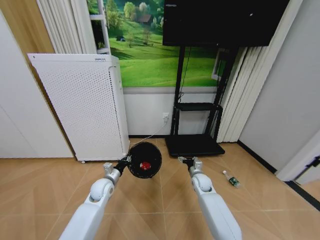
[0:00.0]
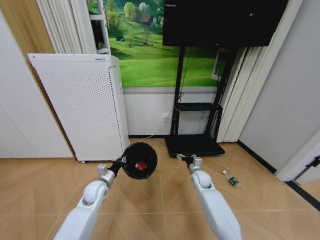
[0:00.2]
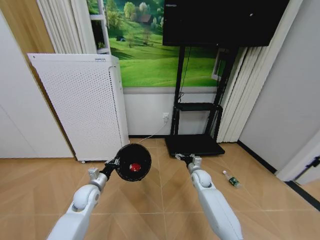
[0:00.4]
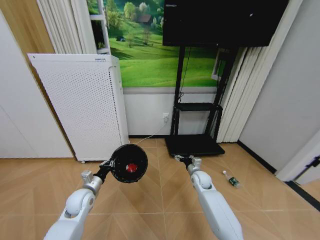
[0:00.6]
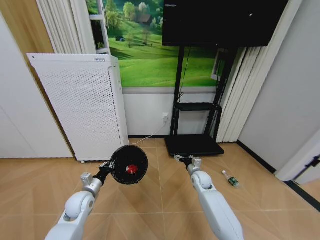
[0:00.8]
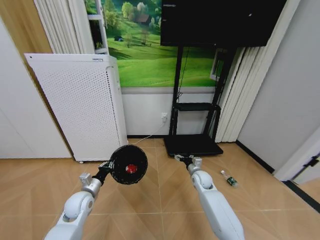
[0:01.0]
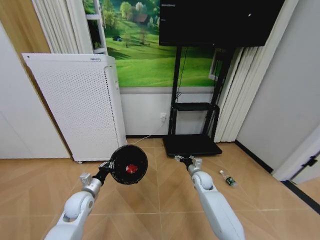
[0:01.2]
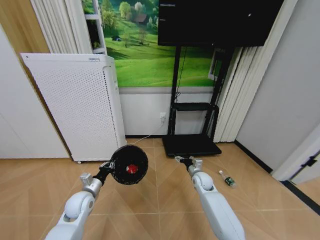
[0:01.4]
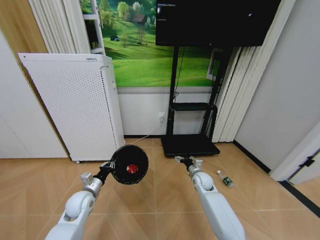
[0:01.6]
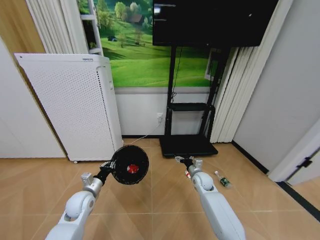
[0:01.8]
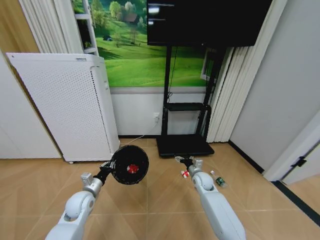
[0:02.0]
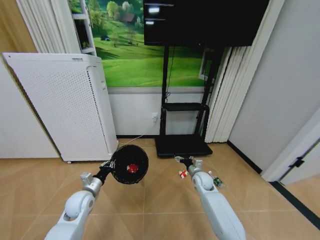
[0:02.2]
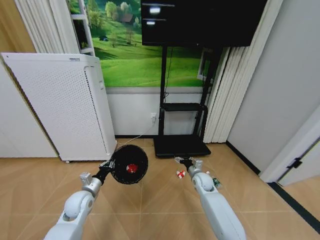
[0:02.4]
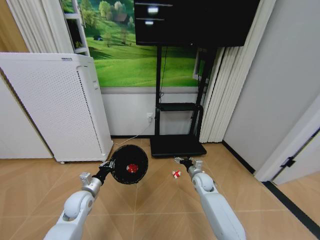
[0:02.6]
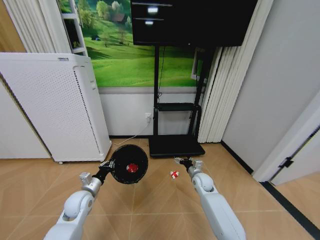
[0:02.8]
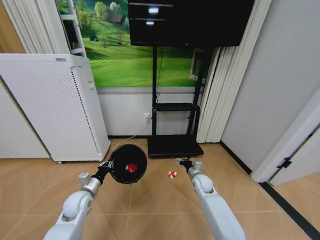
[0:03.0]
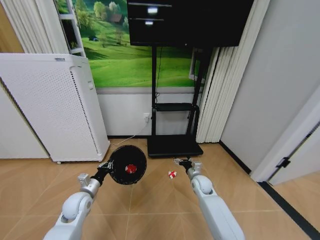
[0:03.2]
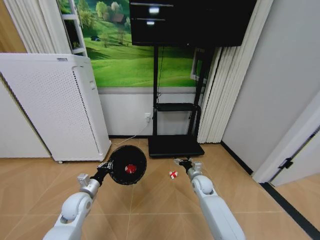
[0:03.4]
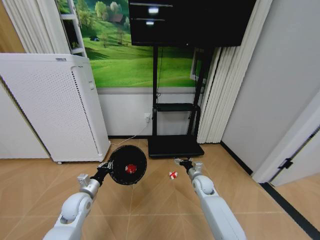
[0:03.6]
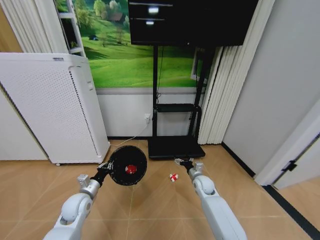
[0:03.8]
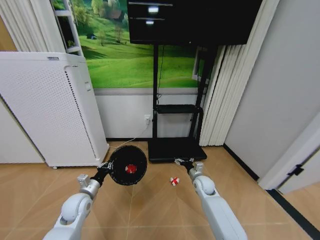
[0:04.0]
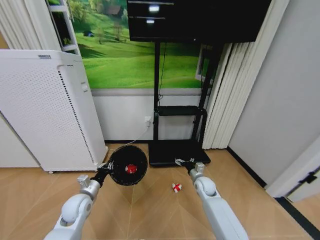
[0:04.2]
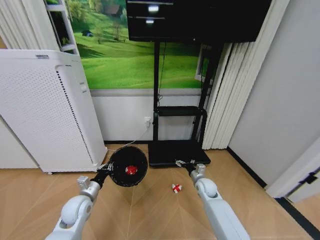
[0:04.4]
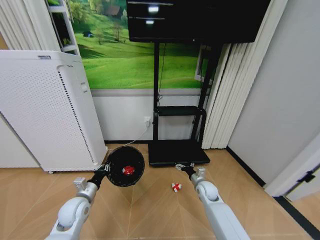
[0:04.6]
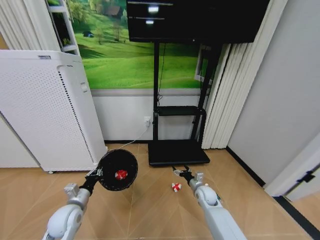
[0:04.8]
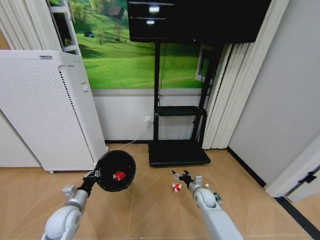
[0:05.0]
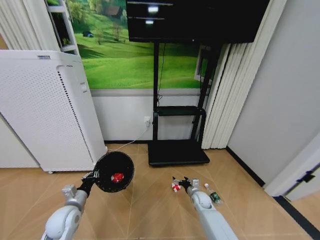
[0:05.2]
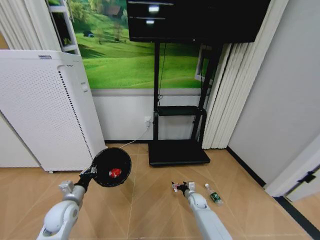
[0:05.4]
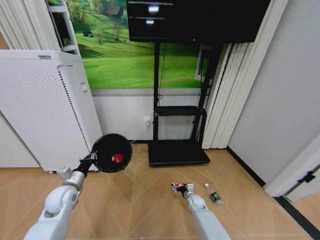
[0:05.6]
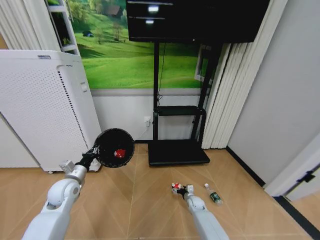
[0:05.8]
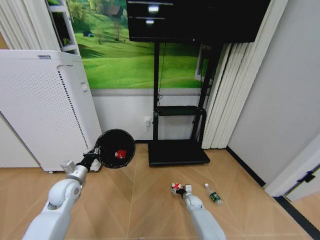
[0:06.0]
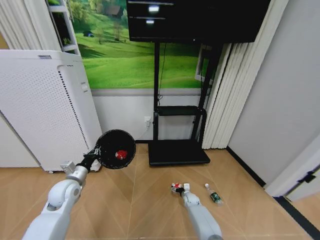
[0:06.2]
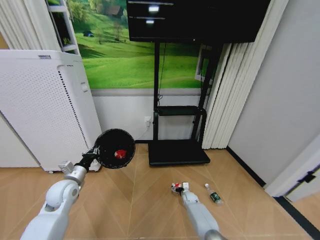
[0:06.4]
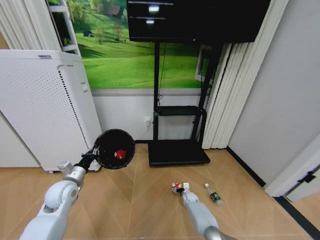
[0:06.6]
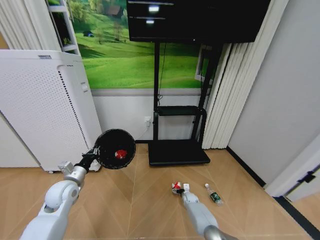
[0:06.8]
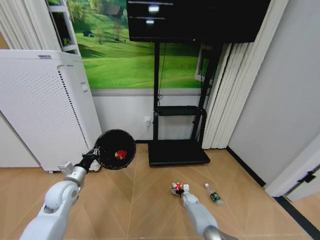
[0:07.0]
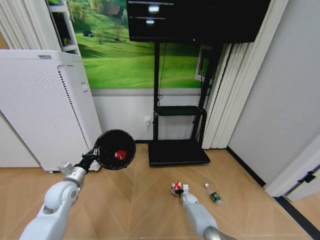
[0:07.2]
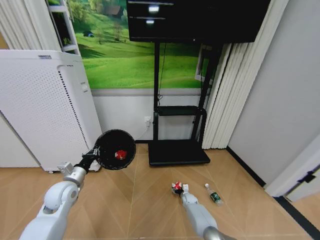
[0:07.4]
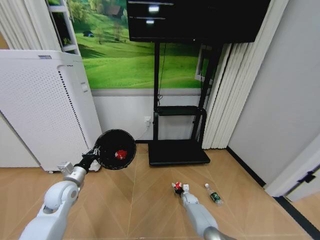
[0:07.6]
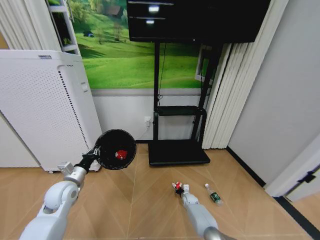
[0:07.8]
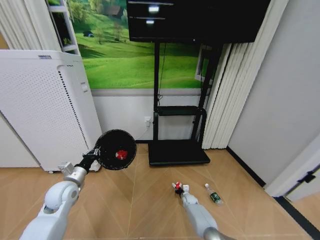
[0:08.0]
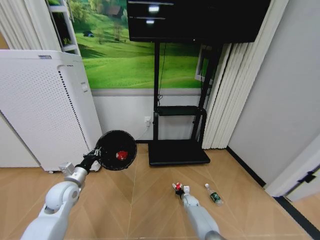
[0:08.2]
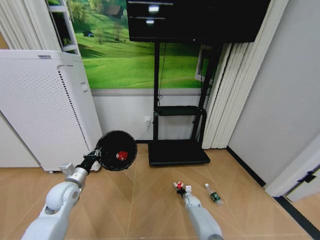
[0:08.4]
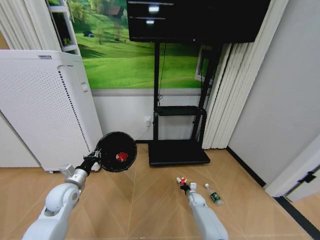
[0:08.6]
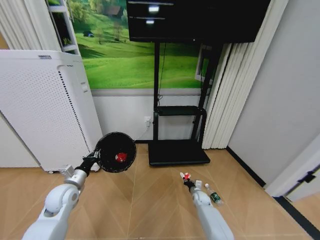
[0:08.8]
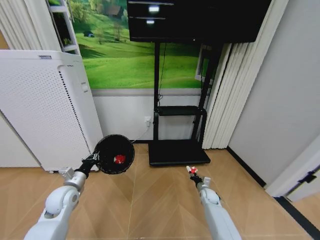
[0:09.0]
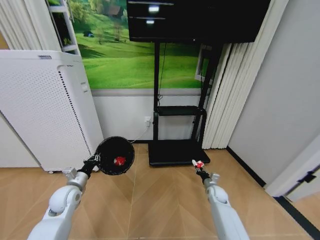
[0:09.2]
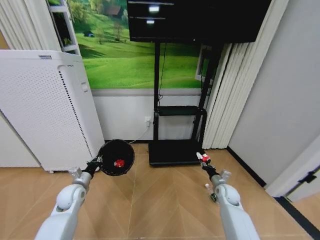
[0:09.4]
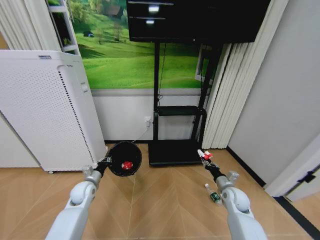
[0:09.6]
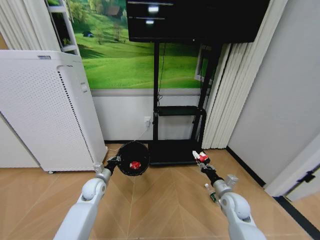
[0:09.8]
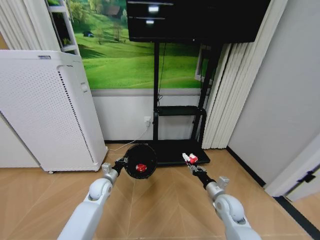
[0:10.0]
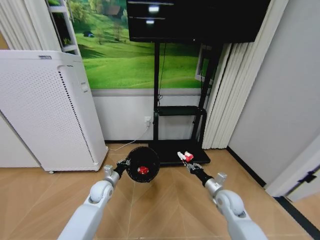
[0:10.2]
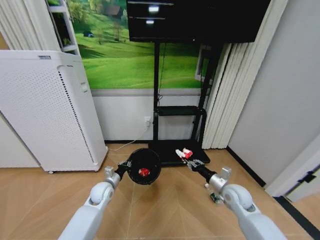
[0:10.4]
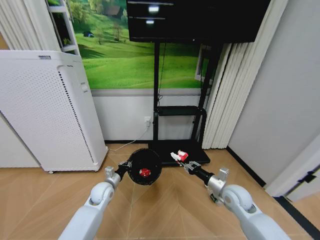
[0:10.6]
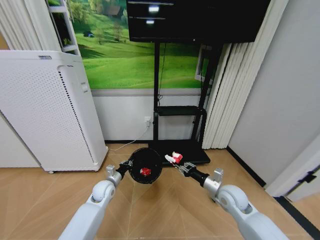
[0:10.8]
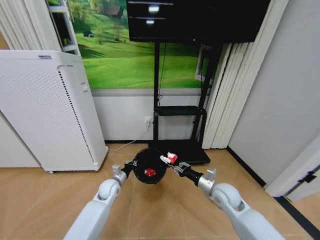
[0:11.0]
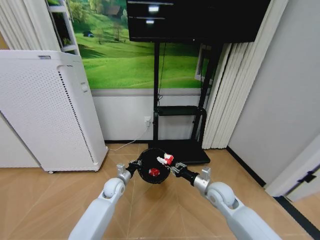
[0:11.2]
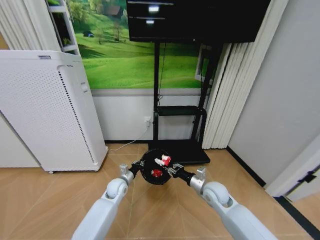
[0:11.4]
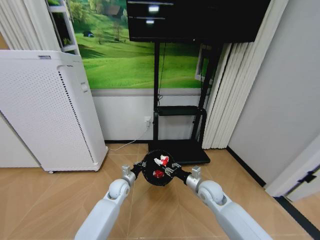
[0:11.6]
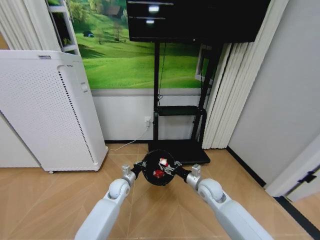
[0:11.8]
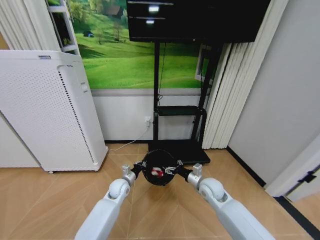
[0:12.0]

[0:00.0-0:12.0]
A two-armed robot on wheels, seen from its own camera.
Task of the whole recording: Pick up the trash bin and place the garbage on the floor into it.
0:00.0 to 0:01.6: The left gripper shifts some 10 cm to the left and backward.
0:04.4 to 0:06.0: The left gripper moves upward, some 5 cm, while the right gripper travels downward by approximately 20 cm.
0:06.0 to 0:07.6: The right gripper closes.
0:07.6 to 0:09.0: The right gripper moves upward and to the right, some 10 cm, and closes its fingers.
0:09.0 to 0:10.4: The right gripper travels upward and backward by approximately 20 cm, while the left gripper is displaced to the right, downward and forward by roughly 15 cm.
0:10.4 to 0:12.0: The right gripper shifts approximately 10 cm to the left, and opens up. Meanwhile the left gripper goes some 5 cm to the right.

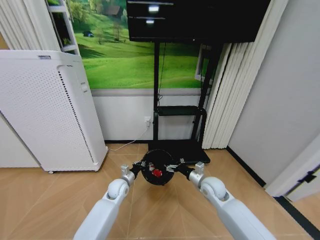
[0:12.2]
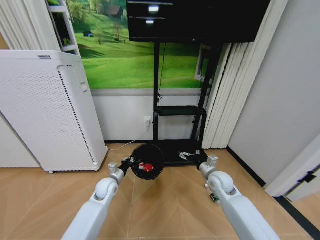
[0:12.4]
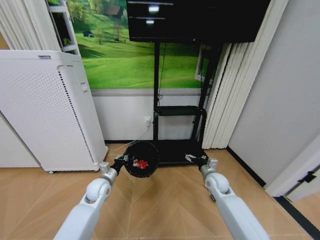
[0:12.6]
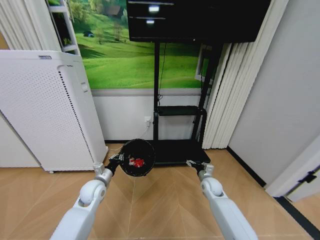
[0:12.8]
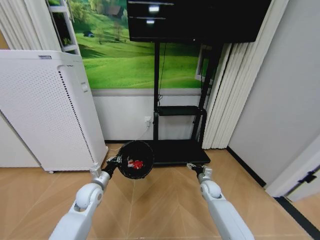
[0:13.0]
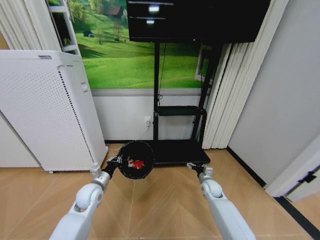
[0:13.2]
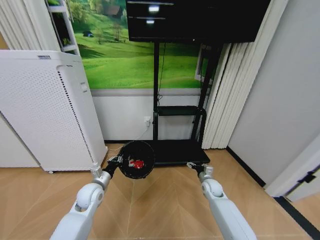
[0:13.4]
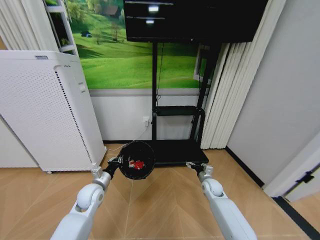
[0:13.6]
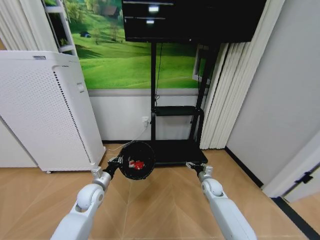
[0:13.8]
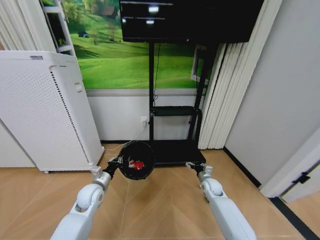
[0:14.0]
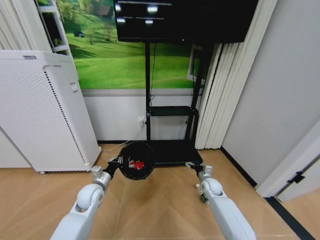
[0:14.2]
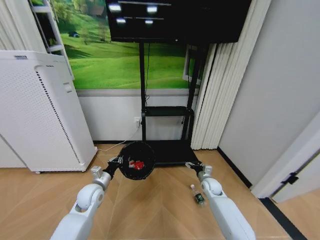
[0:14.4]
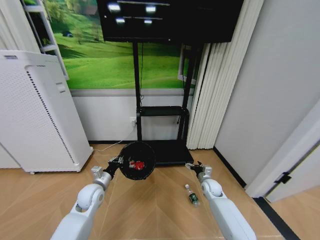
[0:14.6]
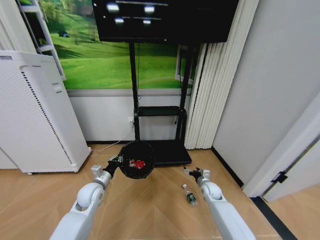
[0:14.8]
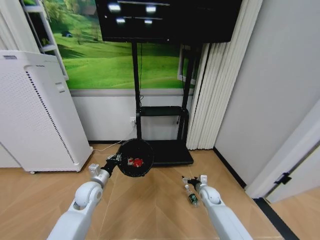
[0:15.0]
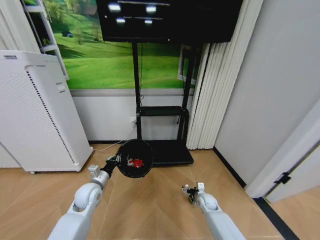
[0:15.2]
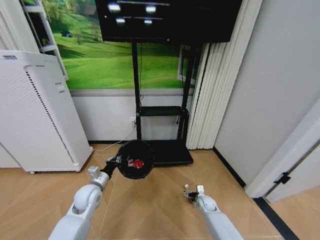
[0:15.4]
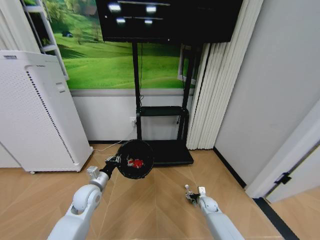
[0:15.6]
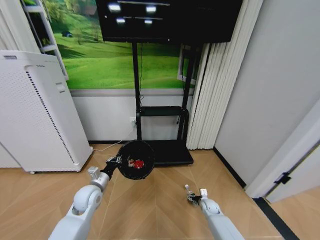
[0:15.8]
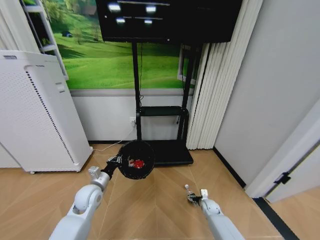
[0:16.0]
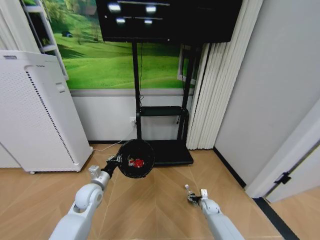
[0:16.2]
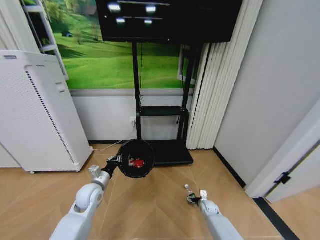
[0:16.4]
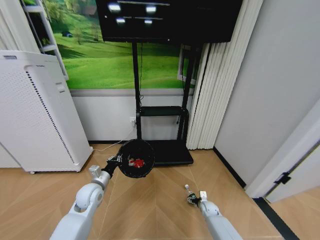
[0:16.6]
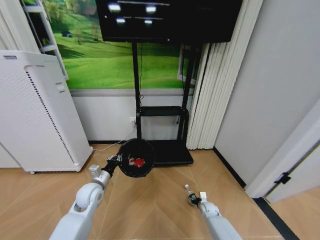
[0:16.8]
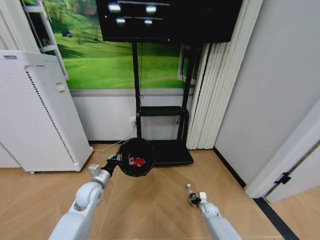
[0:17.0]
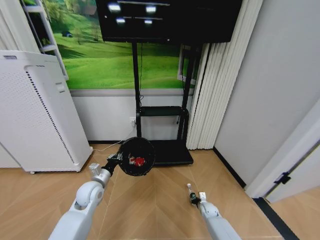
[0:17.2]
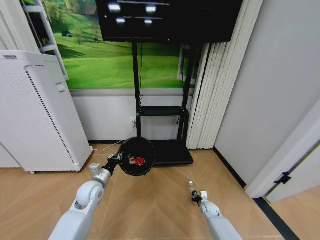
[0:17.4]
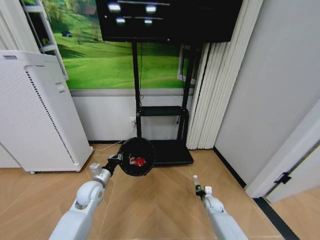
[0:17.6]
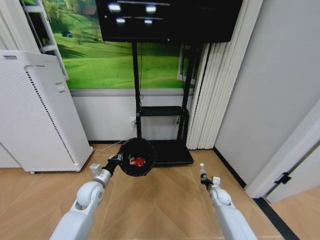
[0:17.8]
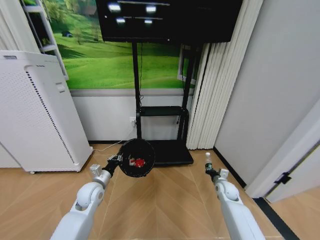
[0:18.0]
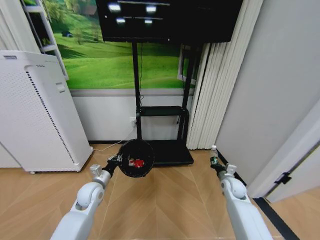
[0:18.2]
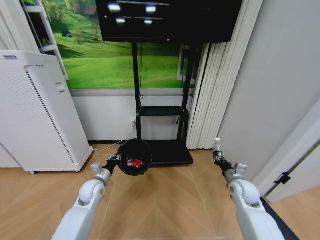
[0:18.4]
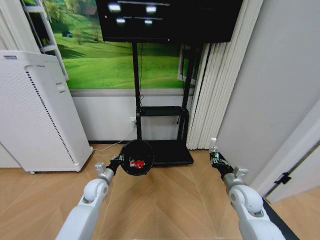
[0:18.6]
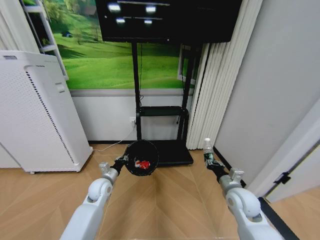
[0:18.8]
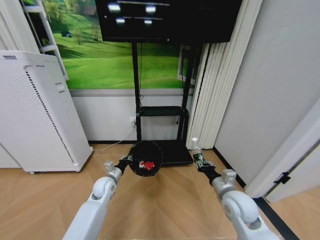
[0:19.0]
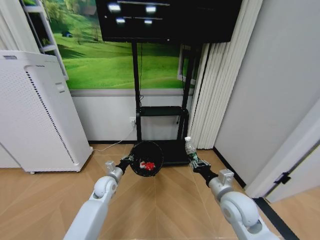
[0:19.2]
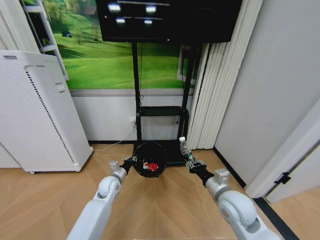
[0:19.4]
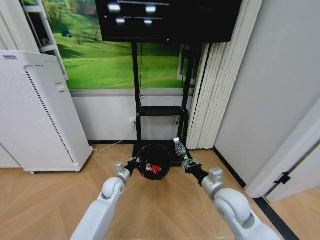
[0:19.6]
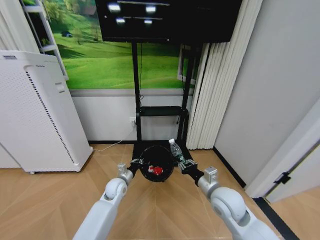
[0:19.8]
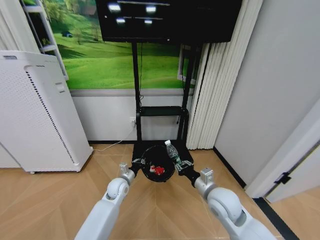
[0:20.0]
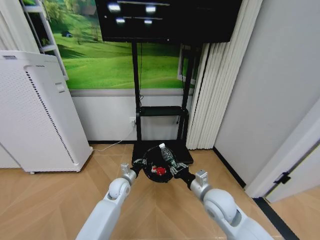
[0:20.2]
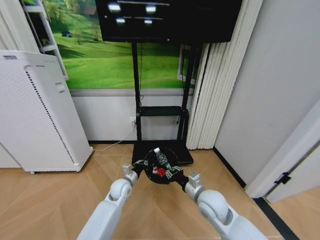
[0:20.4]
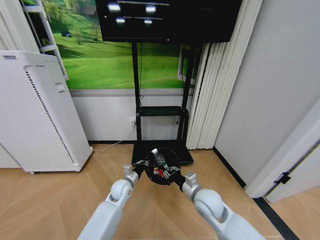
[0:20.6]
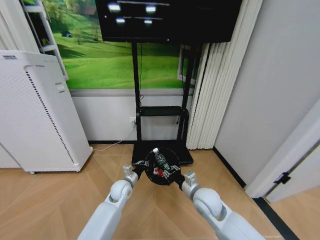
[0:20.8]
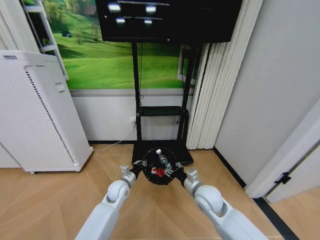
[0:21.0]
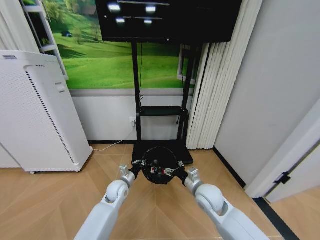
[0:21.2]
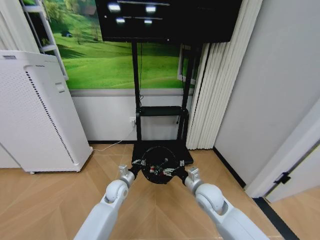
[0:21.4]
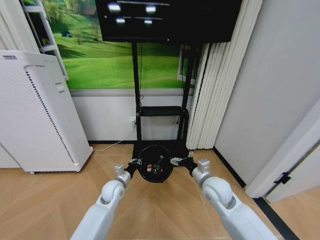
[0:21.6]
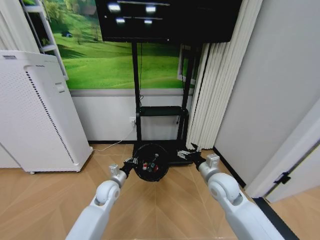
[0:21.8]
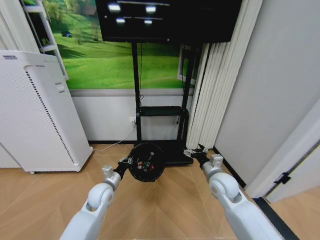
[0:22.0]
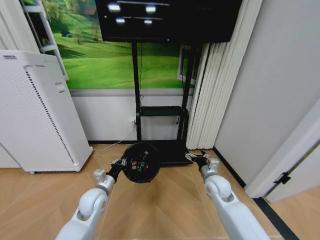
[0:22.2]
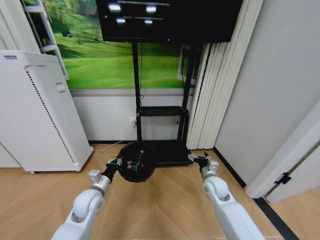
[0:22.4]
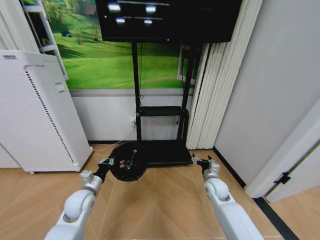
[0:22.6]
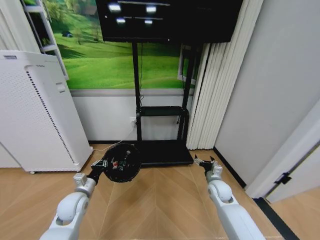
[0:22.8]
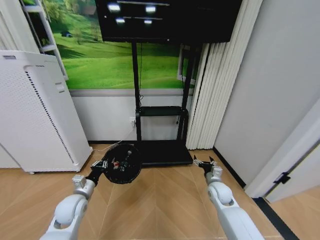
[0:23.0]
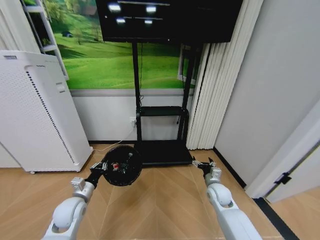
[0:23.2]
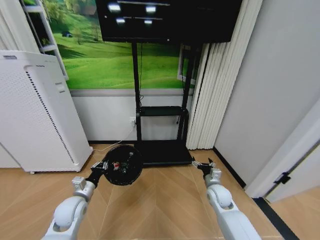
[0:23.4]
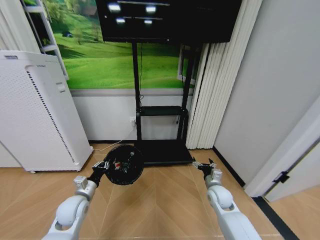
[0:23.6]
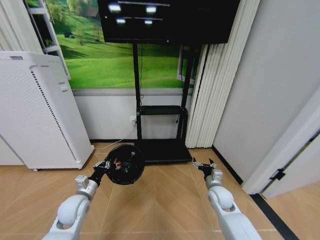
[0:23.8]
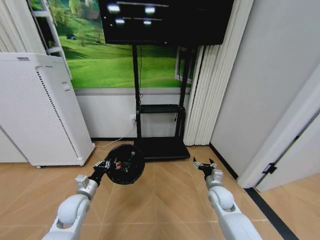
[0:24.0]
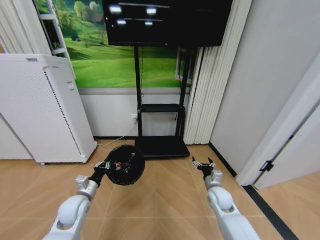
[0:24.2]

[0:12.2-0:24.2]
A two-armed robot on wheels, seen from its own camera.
Task of the whole recording: Pick up the trash bin and place the garbage on the floor into it.
0:12.2 to 0:13.8: The right gripper shifts about 15 cm downward, forward and to the right, while the left gripper shifts approximately 10 cm to the left, backward and upward.
0:13.8 to 0:15.2: The right gripper goes about 10 cm downward.
0:15.2 to 0:16.6: The right gripper moves downward, some 5 cm.
0:16.6 to 0:18.2: The right gripper is displaced upward by about 20 cm, and closes.
0:18.2 to 0:19.8: The right gripper travels to the left, backward and upward by approximately 20 cm. The left gripper heads to the right, covering about 10 cm.
0:19.8 to 0:21.2: The right gripper ends up some 5 cm from where it was, and opens up.
0:21.2 to 0:22.6: The left gripper travels to the left and backward by some 15 cm. The right gripper heads to the right, forward and downward, covering roughly 15 cm.
